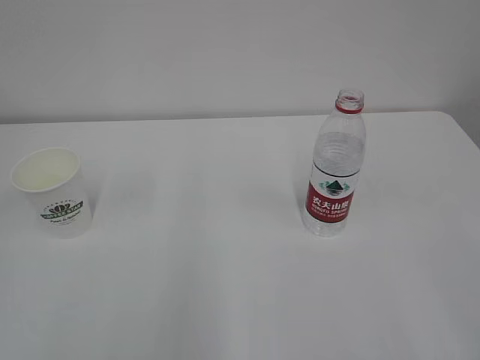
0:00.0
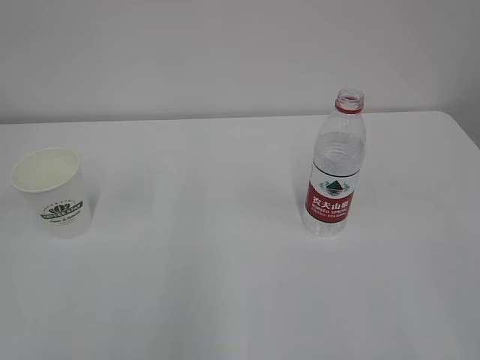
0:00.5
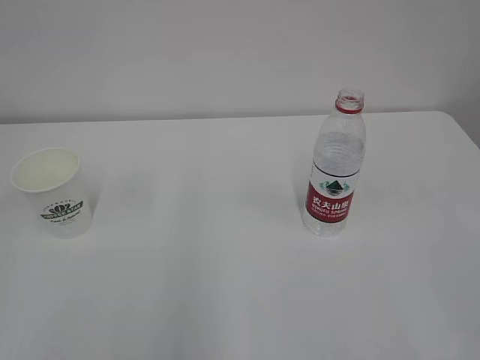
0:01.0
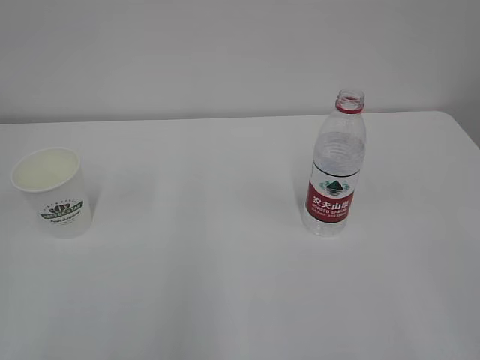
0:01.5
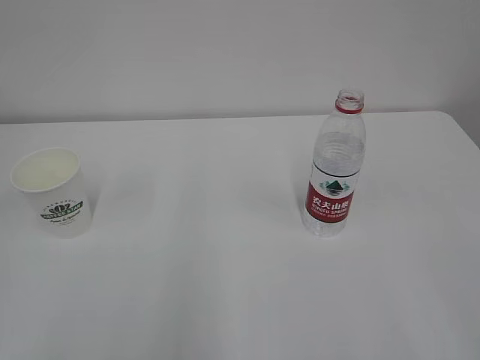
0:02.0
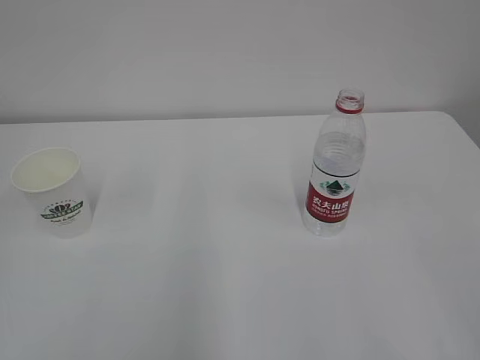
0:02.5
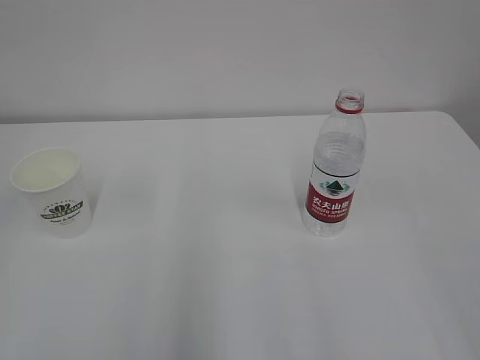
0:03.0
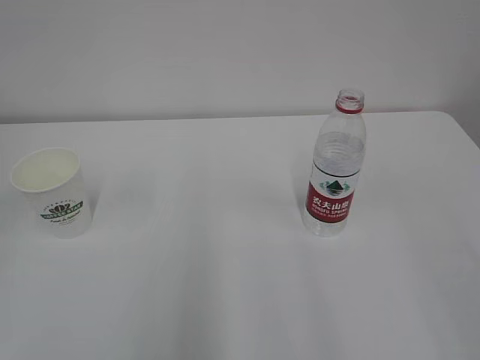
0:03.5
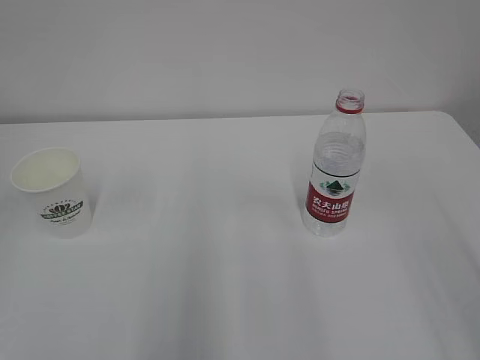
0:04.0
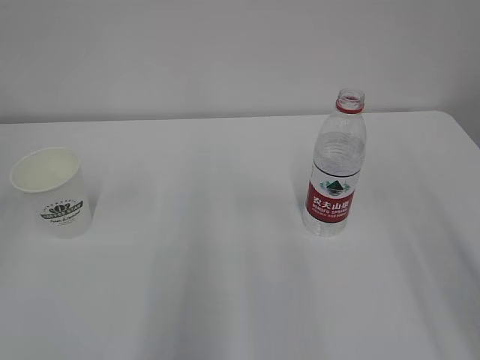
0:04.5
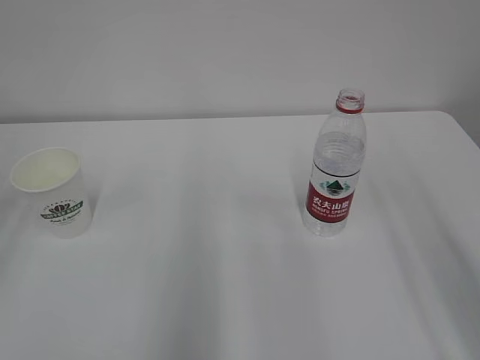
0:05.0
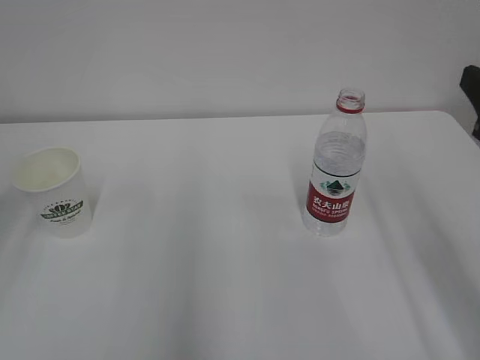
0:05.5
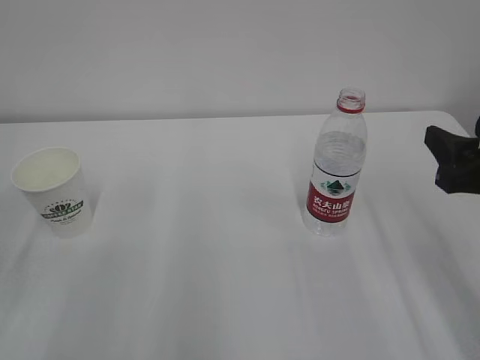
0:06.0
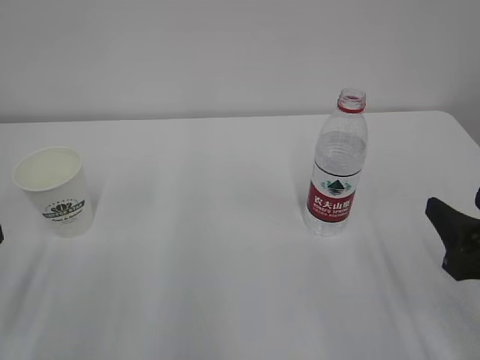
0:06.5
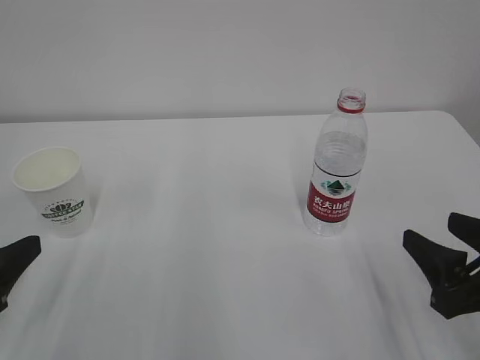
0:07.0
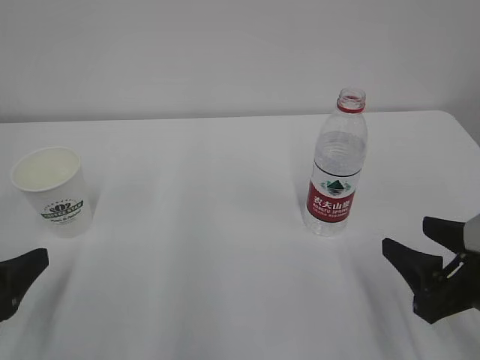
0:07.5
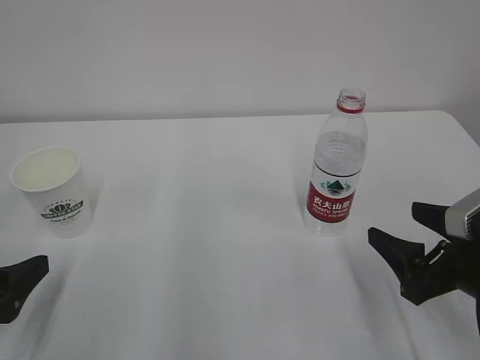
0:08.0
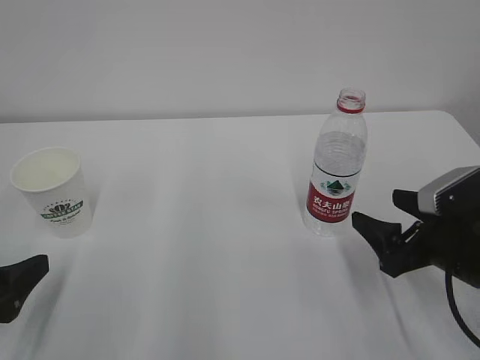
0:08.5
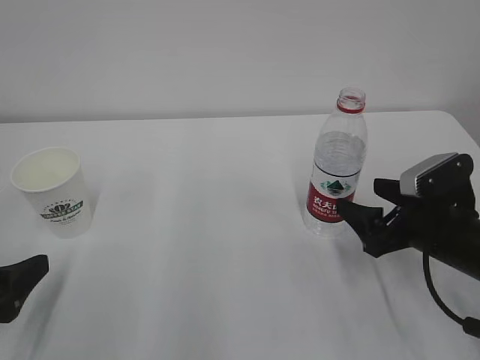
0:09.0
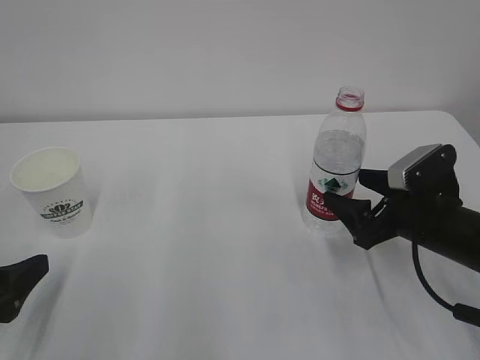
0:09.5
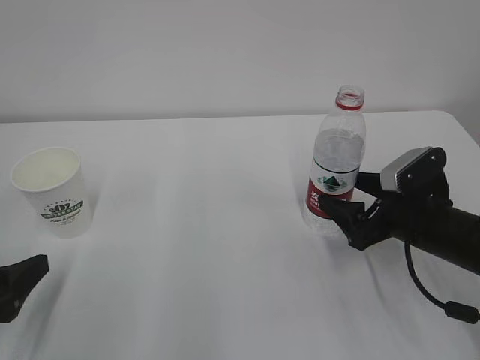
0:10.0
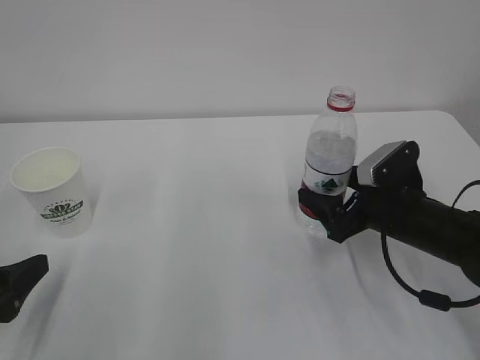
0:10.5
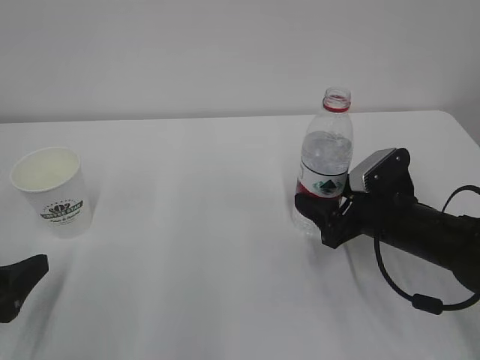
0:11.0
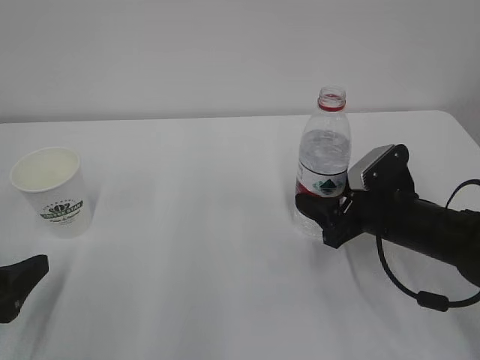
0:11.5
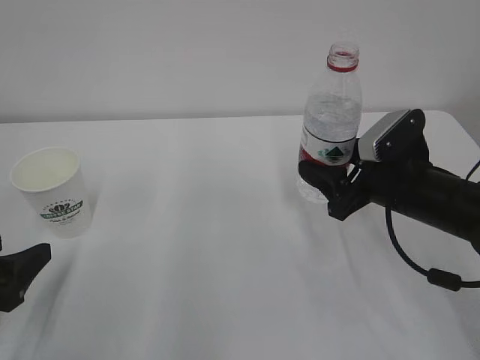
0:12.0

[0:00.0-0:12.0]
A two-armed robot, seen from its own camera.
0:04.0 to 0:06.0: The right gripper moves forward and downward, some 20 cm.
0:06.0 to 0:08.0: Both grippers move downward, some 5 cm. The right gripper opens. Meanwhile the left gripper opens its fingers.
0:08.0 to 0:10.0: The right gripper travels forward by approximately 10 cm.
0:10.0 to 0:12.0: The right gripper moves roughly 5 cm, and closes its fingers.

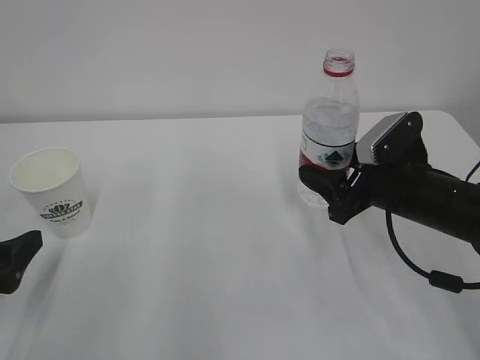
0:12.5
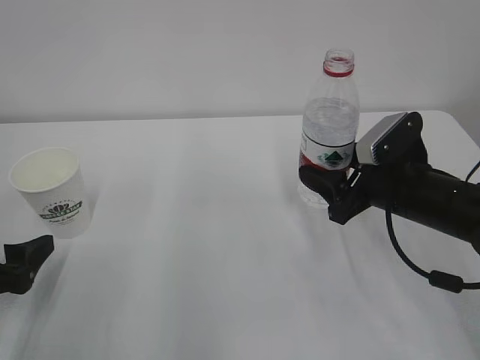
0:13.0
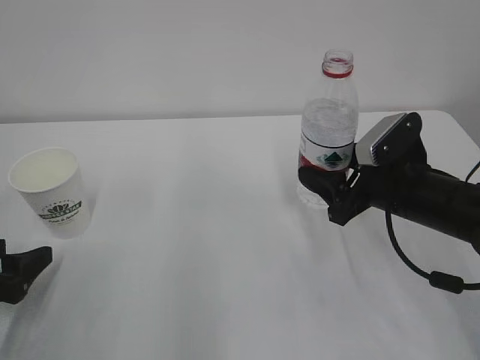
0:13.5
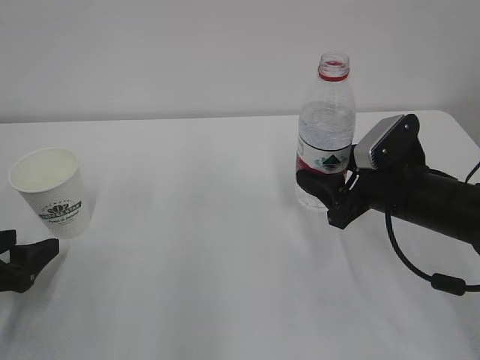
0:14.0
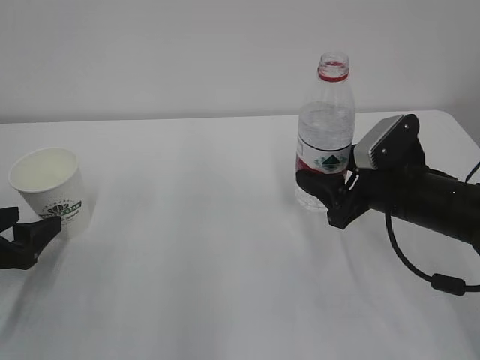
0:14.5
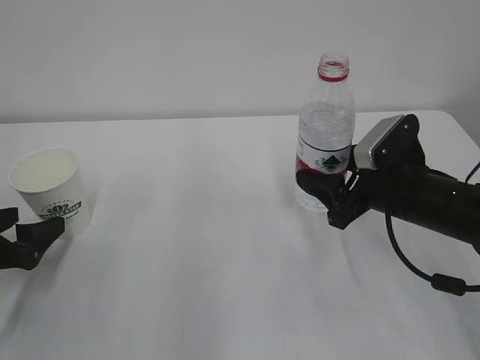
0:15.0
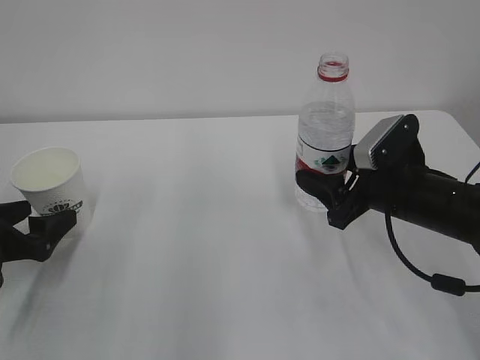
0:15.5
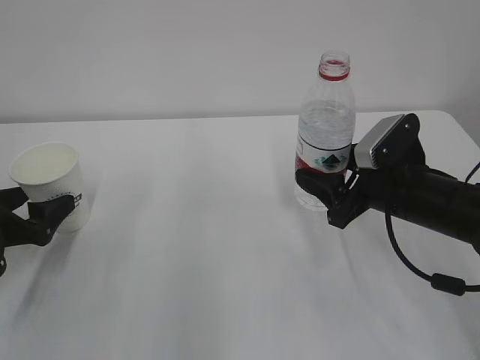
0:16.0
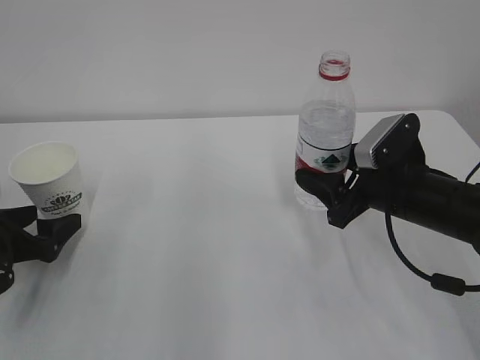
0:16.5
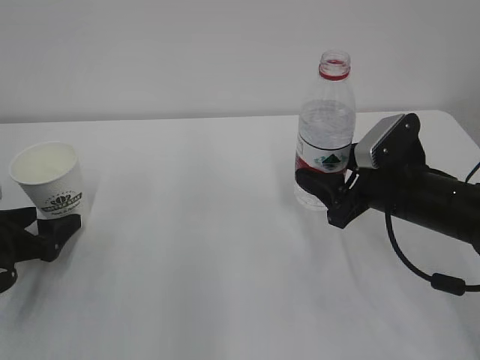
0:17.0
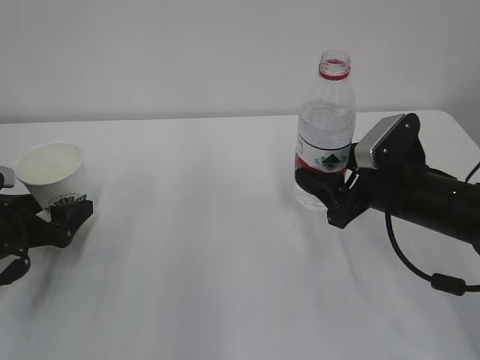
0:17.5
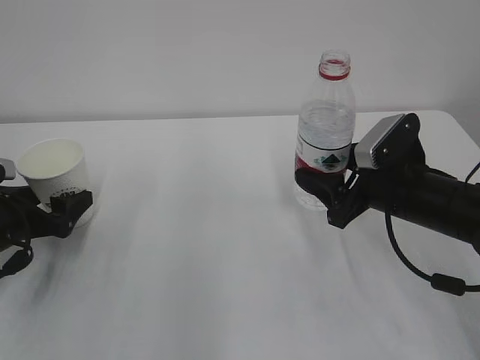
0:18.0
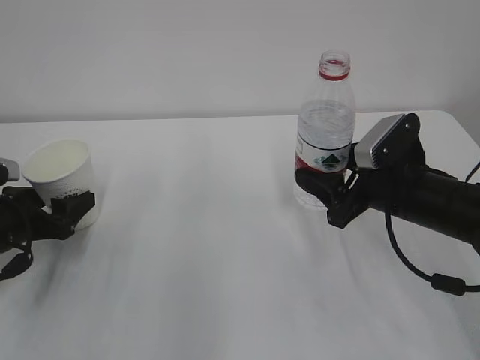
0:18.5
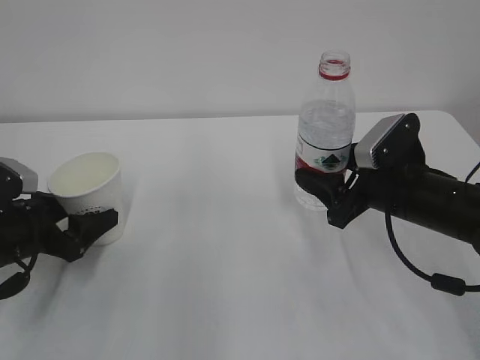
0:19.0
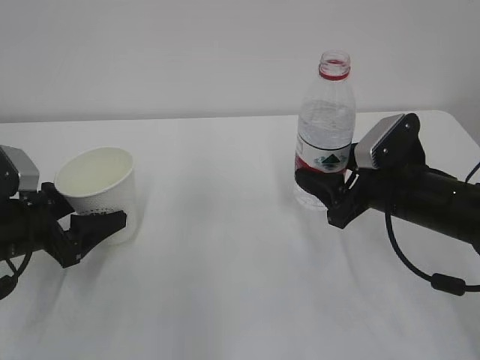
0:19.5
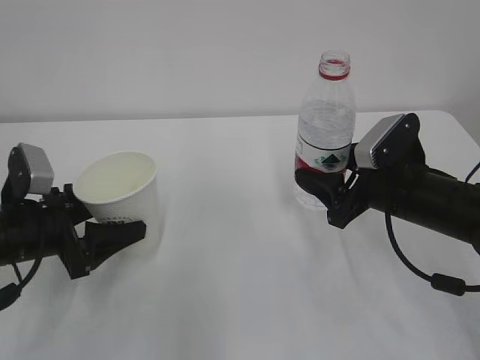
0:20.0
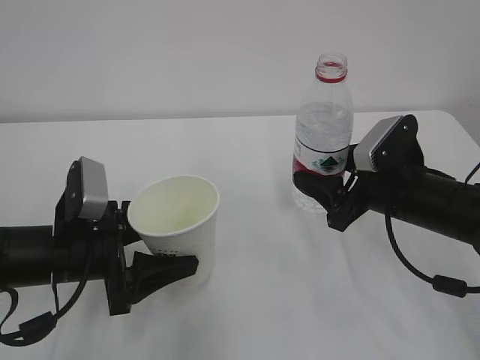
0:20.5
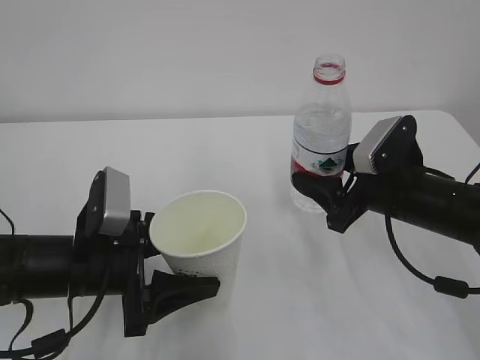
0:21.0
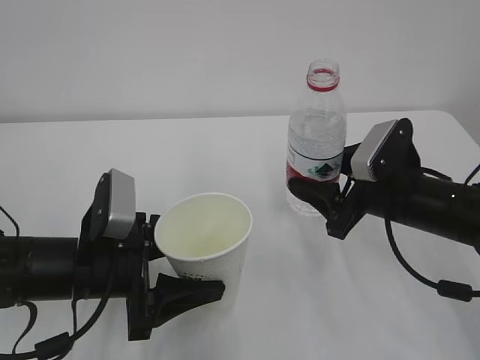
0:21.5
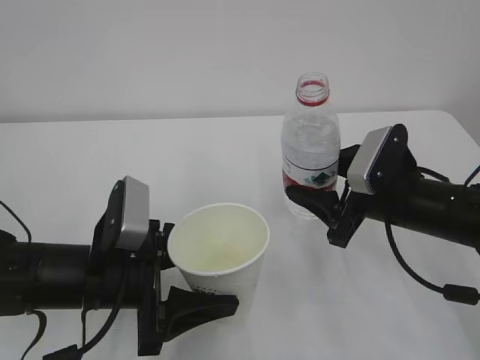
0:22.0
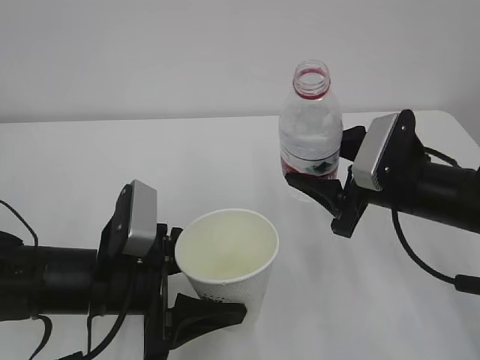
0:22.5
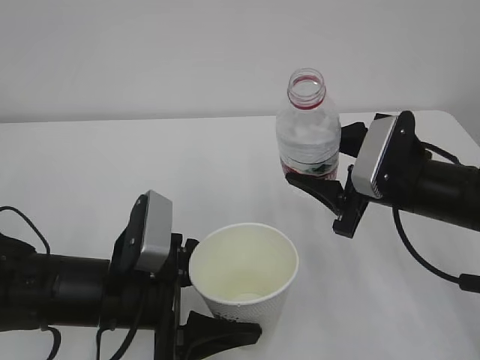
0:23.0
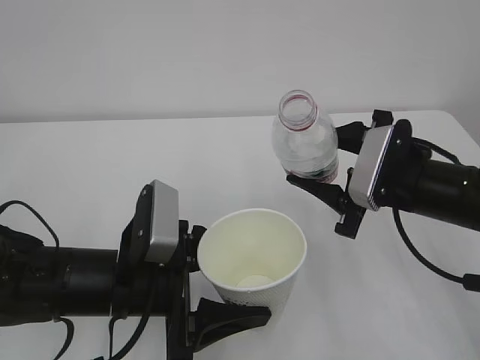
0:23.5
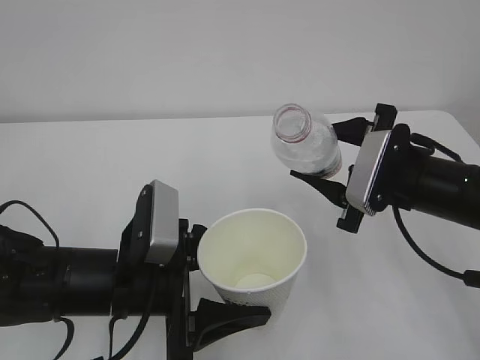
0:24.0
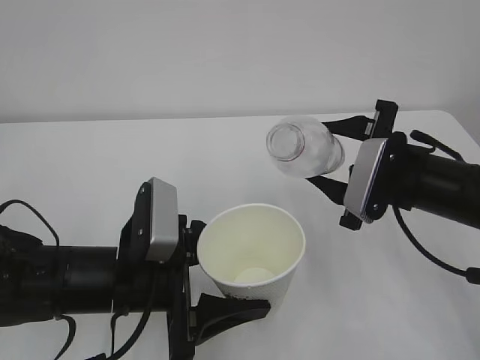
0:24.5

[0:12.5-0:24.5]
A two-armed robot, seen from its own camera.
0:12.5 to 0:14.5: The left gripper travels forward by some 5 cm.
0:14.5 to 0:16.5: The left gripper opens its fingers.
0:16.5 to 0:18.5: The left gripper closes.
0:18.5 to 0:20.5: The left gripper heads to the right and backward, covering some 15 cm.
0:20.5 to 0:22.5: The left gripper moves to the right, about 5 cm.

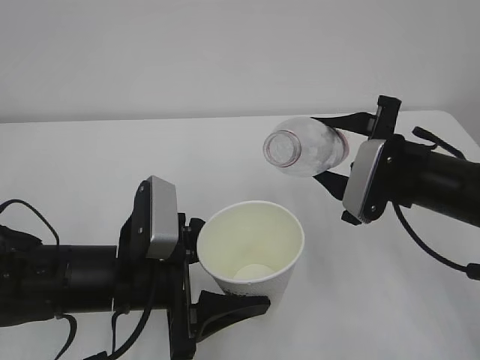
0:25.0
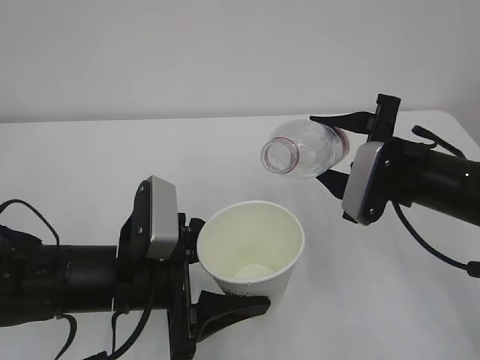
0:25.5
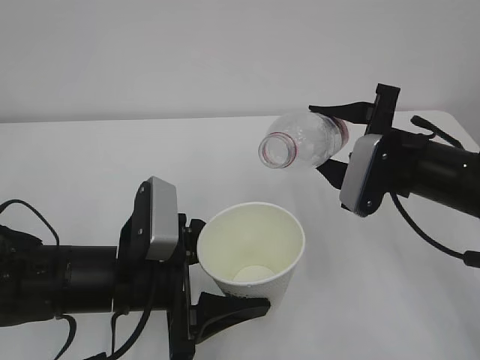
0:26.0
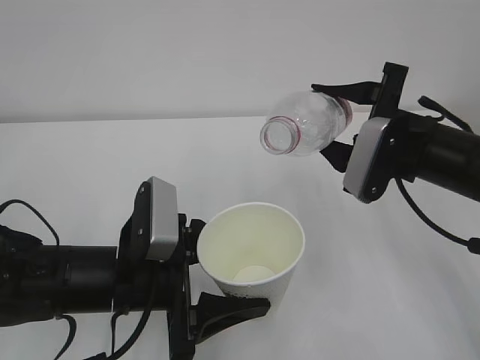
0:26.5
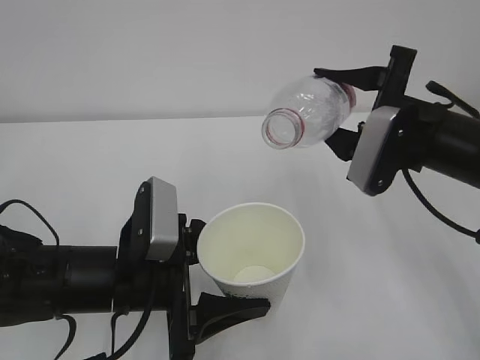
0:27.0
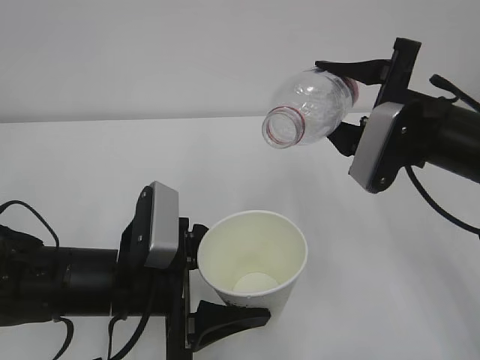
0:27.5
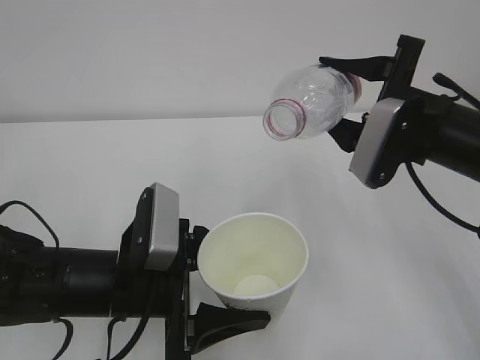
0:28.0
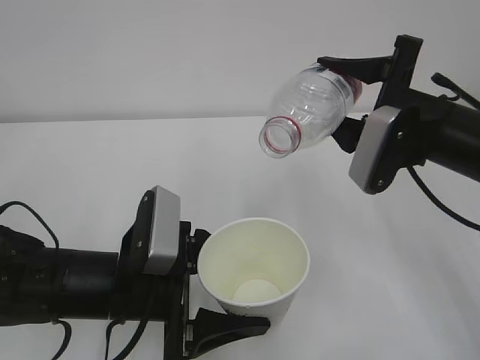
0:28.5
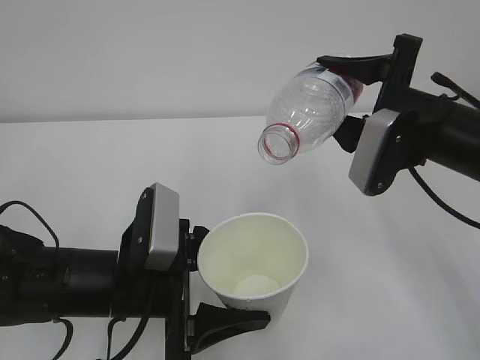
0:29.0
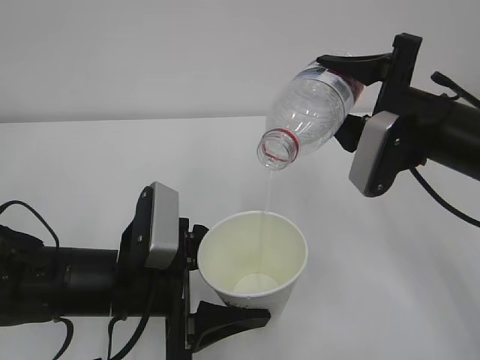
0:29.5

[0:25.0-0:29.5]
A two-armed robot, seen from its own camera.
0:25.0 to 0:27.0: There are only small adjustments of the grippers.
0:27.0 to 0:29.5: The grippers move only a little.
